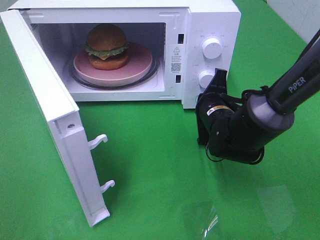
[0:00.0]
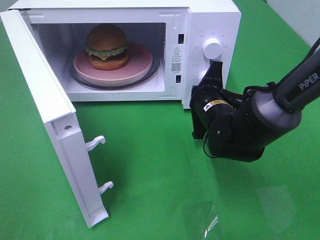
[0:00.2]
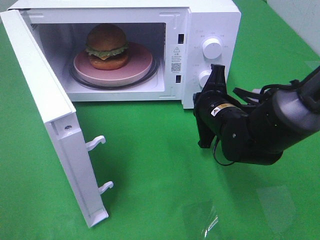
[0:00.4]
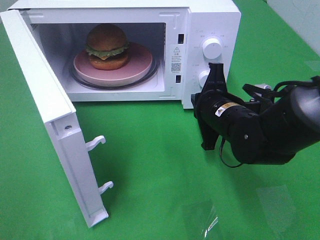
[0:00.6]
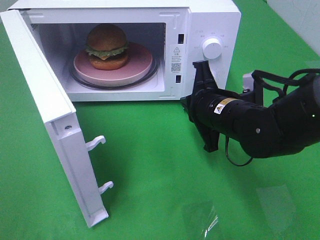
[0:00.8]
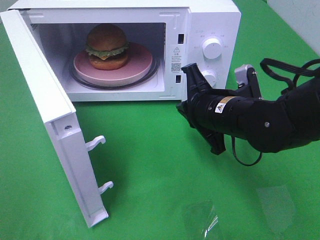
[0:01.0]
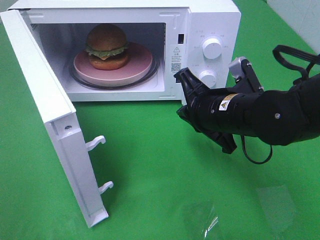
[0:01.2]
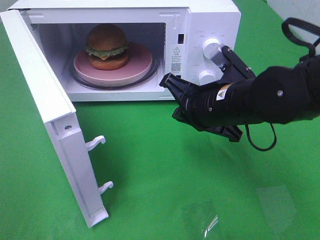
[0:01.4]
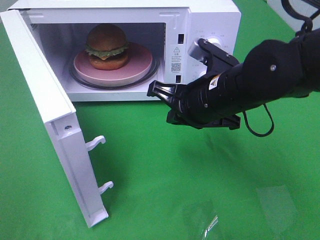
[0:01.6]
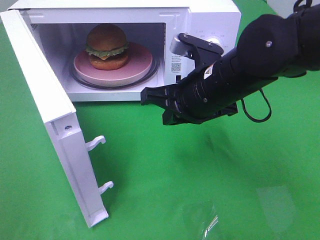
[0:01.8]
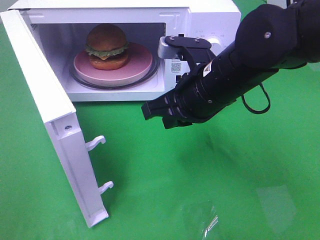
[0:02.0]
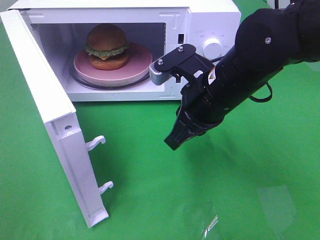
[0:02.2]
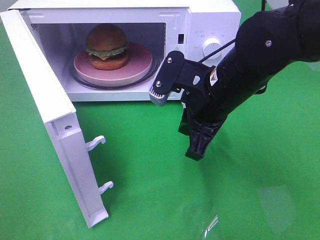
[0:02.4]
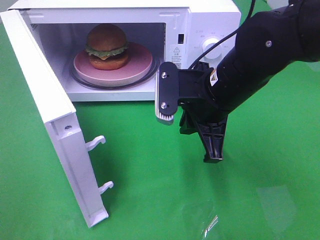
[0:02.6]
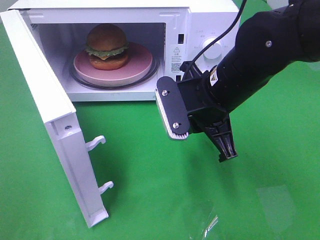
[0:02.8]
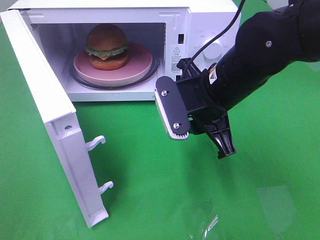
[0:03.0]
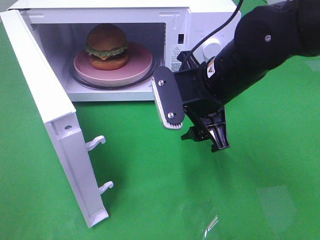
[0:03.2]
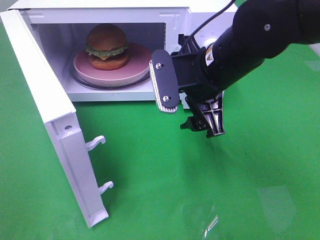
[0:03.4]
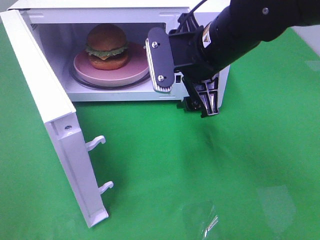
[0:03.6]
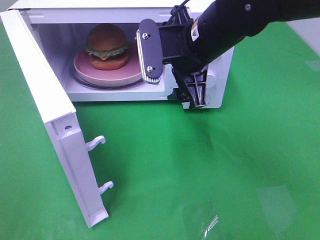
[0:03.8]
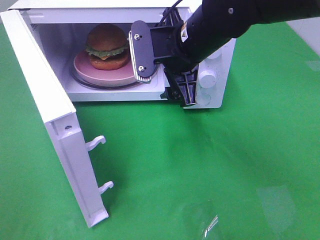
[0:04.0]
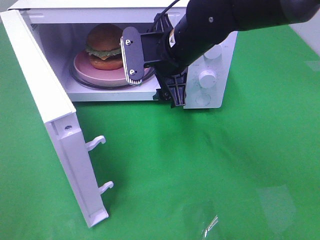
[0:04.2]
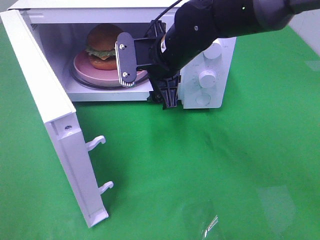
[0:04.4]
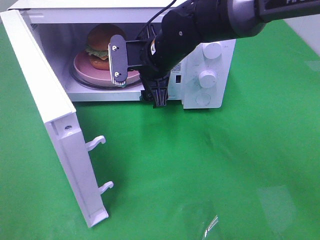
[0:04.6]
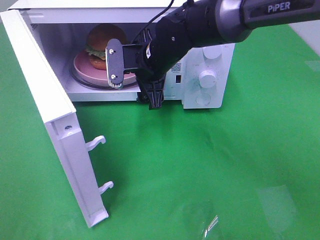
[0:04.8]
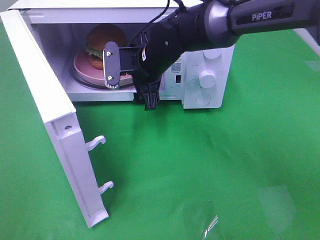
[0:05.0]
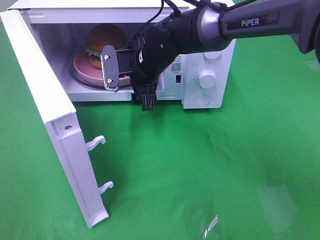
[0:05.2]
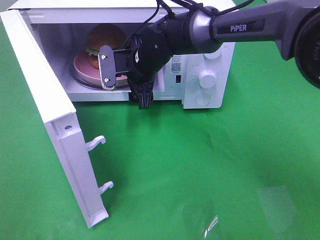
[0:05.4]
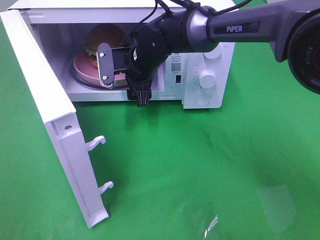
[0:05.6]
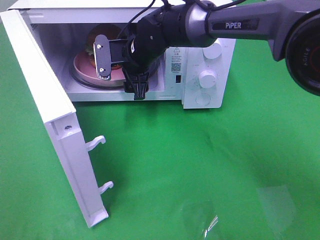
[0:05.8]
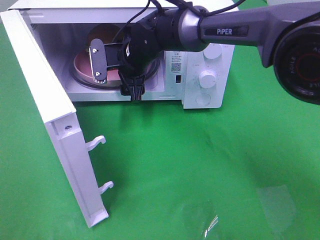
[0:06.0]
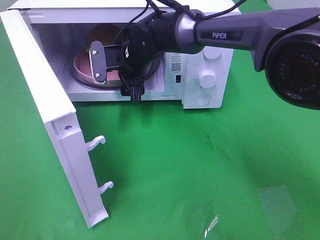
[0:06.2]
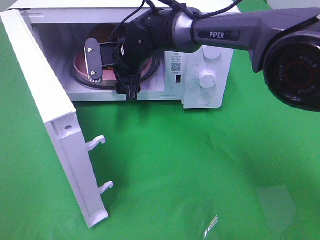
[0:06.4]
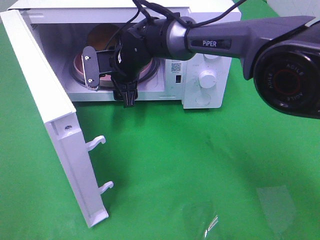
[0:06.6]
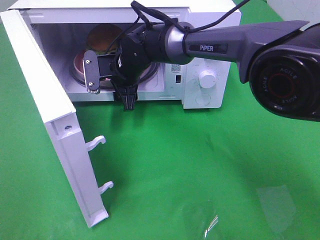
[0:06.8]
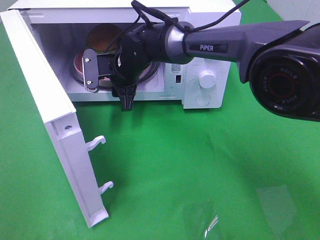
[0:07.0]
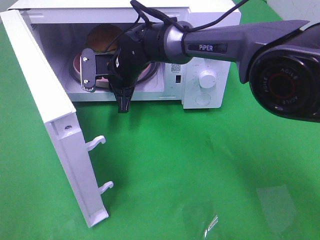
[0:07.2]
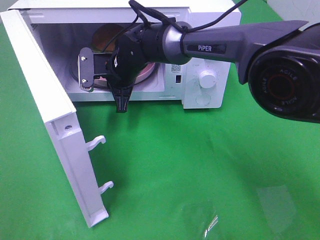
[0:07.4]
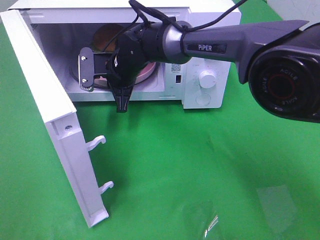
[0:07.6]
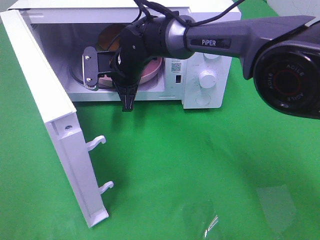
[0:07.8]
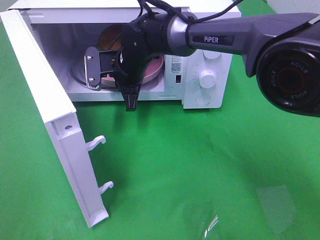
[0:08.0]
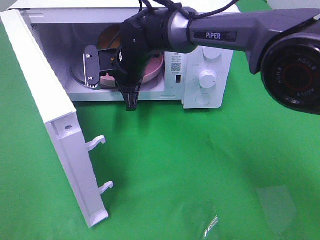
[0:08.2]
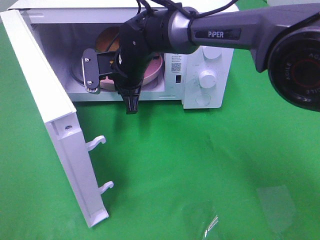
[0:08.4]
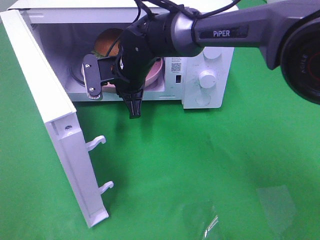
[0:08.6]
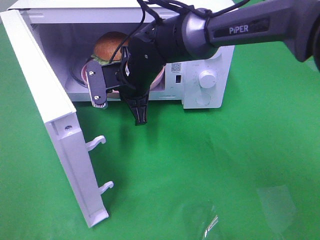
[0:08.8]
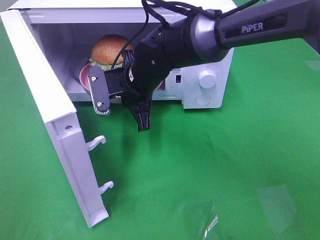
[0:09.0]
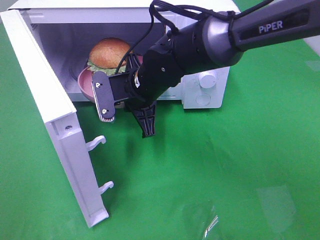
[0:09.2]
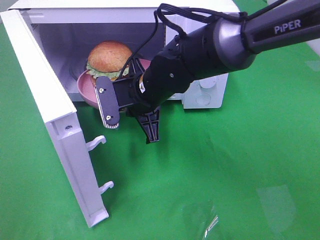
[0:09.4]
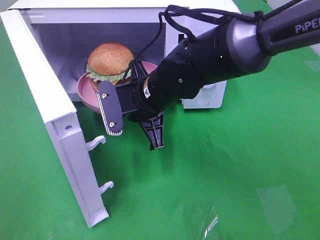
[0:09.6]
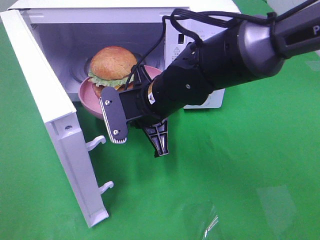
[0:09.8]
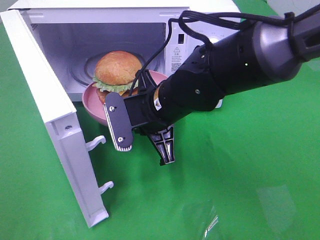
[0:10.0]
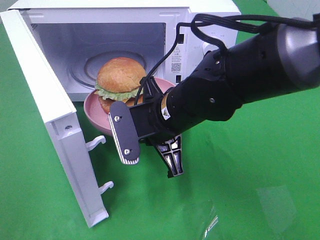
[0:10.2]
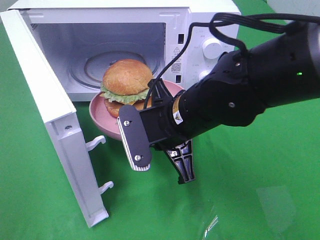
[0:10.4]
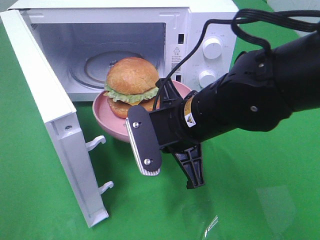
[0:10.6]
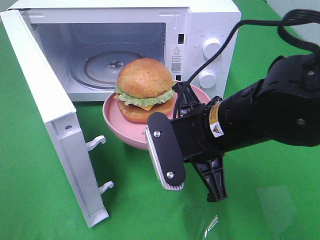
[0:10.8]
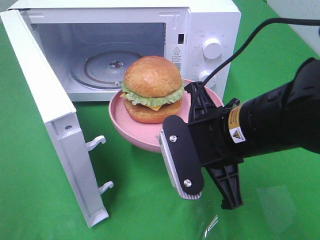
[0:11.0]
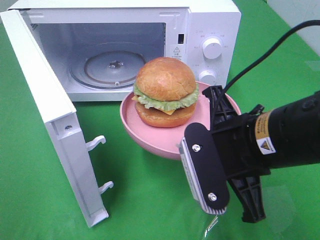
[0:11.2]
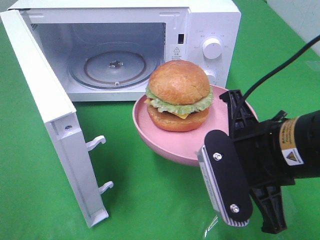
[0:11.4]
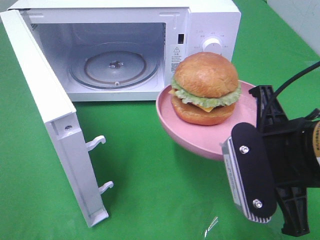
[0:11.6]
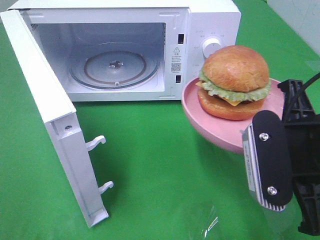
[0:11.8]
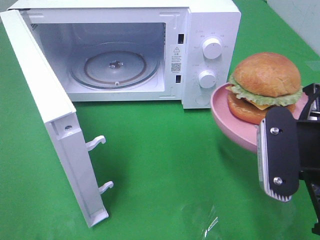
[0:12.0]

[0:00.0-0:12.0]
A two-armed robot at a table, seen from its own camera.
Task of the whole recording: Heat the burger.
Step, 0:00.0 to 0:07.2: Right hand: grab the plate with the hamburger.
0:00.0 to 0:01.6: The right gripper moves upward and backward, some 10 cm.
0:01.6 to 0:03.0: The right gripper opens.
0:03.0 to 0:04.4: The right gripper is displaced forward and to the left by roughly 10 cm, and opens up.
0:04.4 to 0:06.0: The right gripper heads forward and to the left, covering approximately 10 cm.
0:06.0 to 0:07.6: The right gripper closes.
0:07.6 to 0:09.0: The right gripper goes some 5 cm backward.
0:09.0 to 0:10.4: The right gripper travels backward and to the right by some 15 cm.
0:10.4 to 0:12.0: The right gripper travels to the right and backward by about 15 cm.

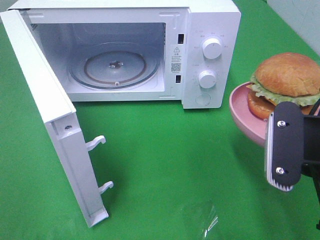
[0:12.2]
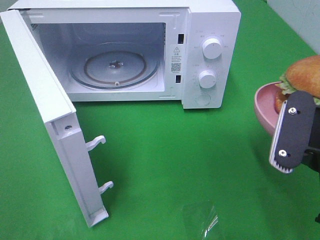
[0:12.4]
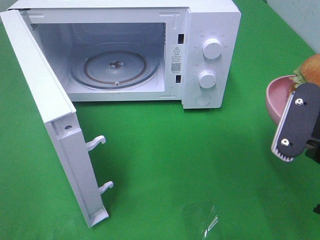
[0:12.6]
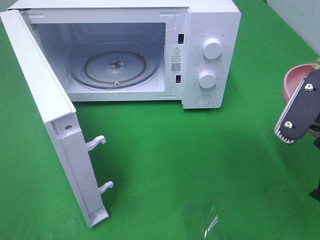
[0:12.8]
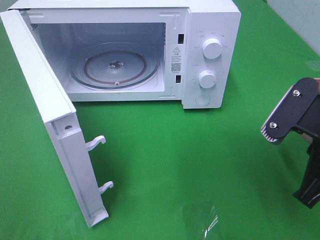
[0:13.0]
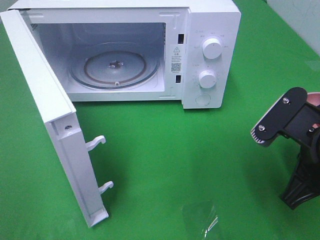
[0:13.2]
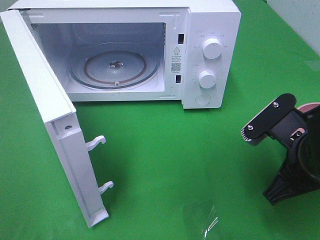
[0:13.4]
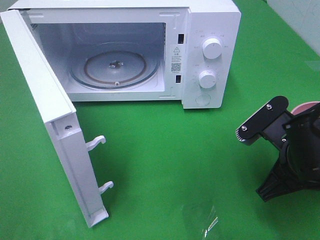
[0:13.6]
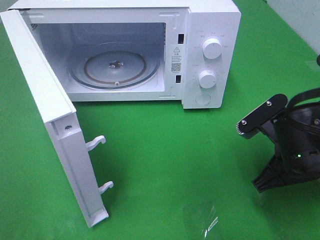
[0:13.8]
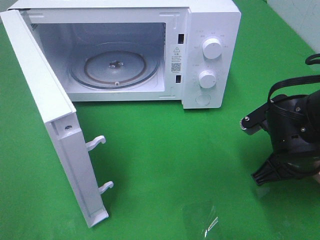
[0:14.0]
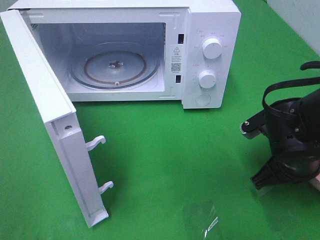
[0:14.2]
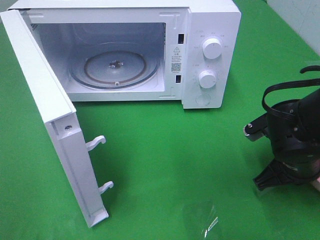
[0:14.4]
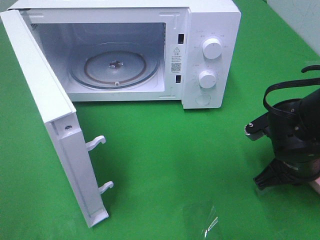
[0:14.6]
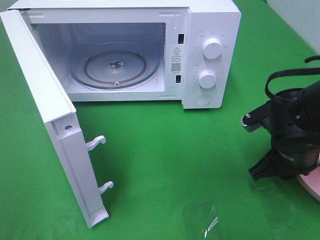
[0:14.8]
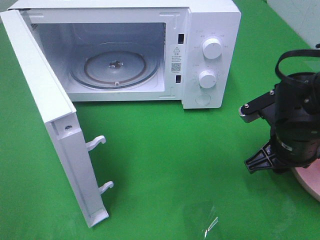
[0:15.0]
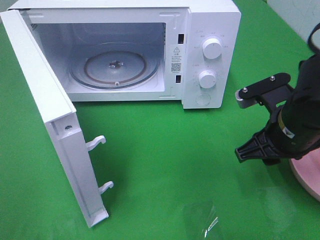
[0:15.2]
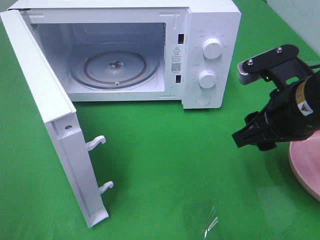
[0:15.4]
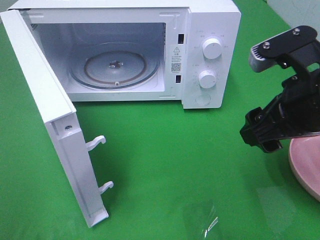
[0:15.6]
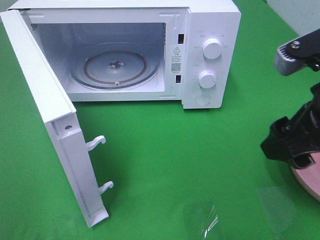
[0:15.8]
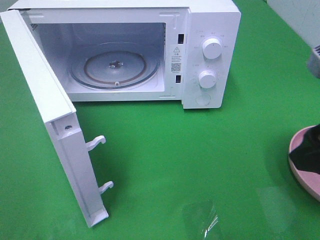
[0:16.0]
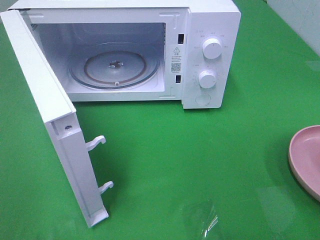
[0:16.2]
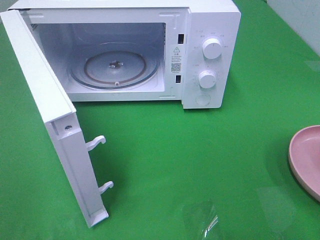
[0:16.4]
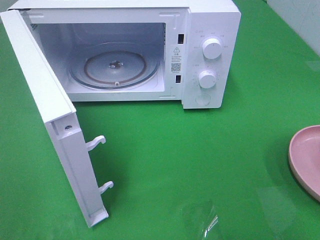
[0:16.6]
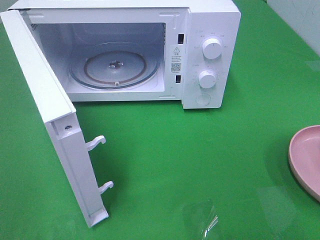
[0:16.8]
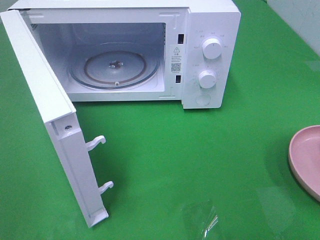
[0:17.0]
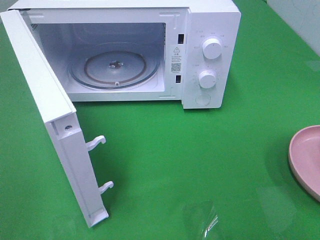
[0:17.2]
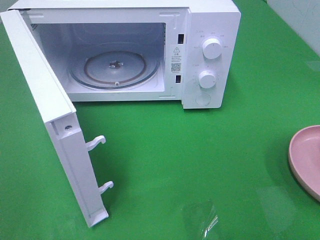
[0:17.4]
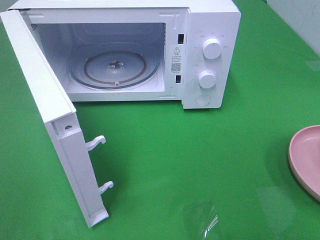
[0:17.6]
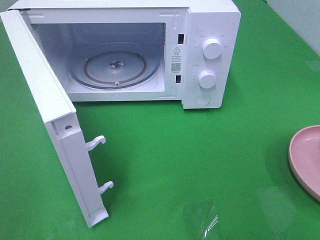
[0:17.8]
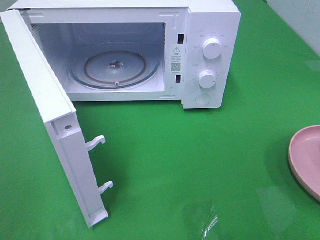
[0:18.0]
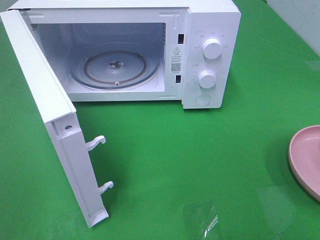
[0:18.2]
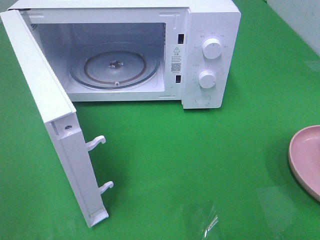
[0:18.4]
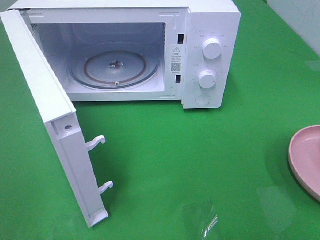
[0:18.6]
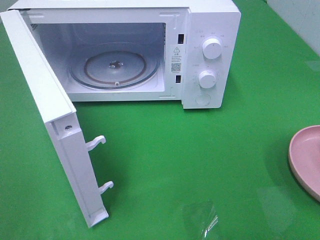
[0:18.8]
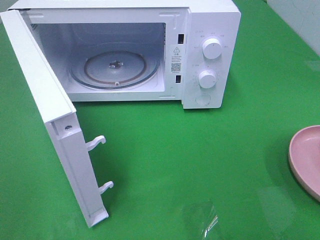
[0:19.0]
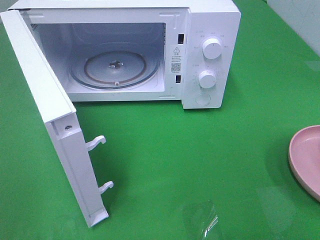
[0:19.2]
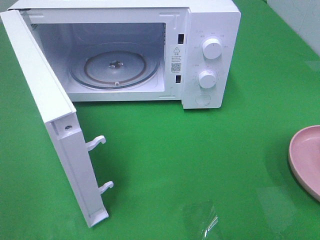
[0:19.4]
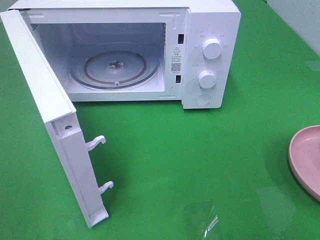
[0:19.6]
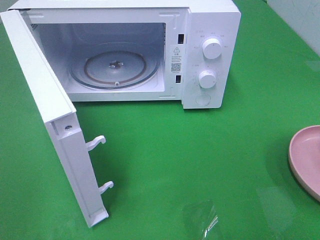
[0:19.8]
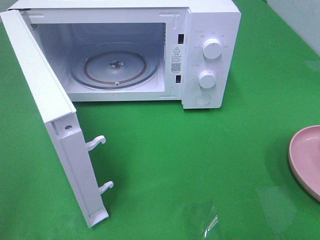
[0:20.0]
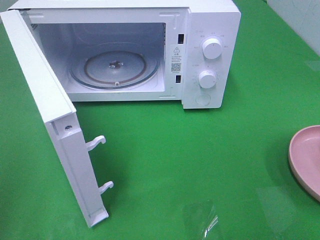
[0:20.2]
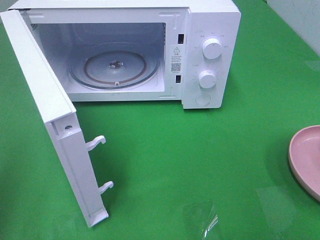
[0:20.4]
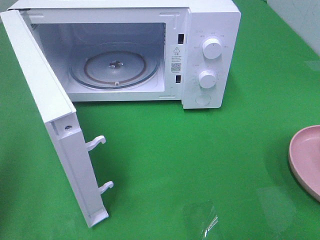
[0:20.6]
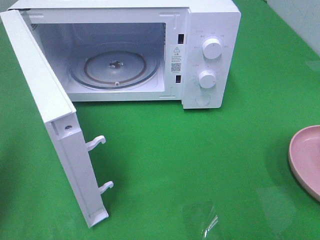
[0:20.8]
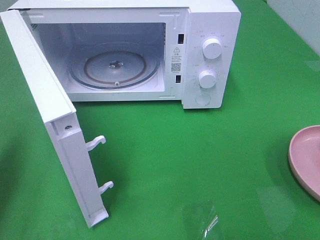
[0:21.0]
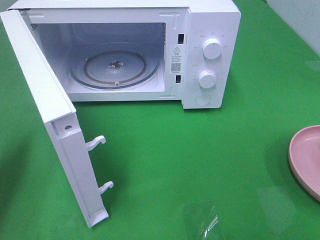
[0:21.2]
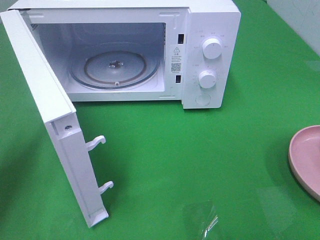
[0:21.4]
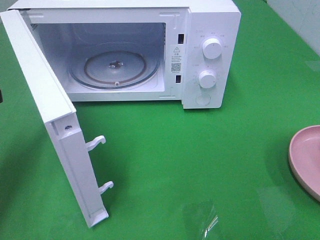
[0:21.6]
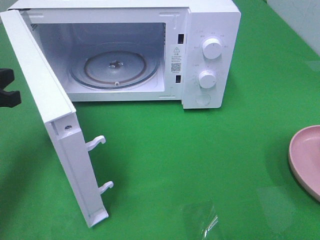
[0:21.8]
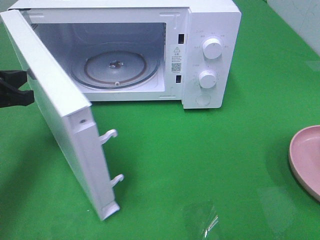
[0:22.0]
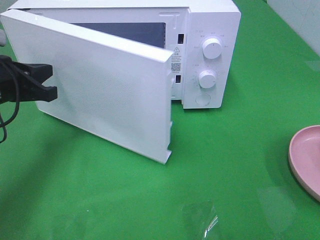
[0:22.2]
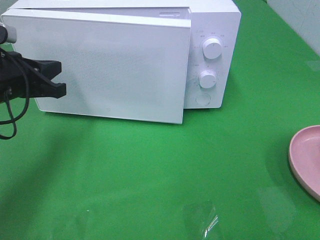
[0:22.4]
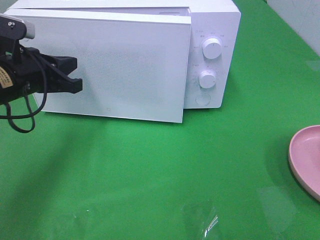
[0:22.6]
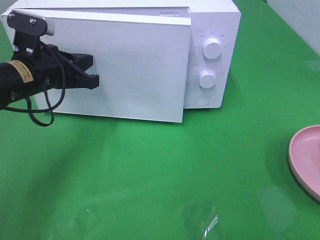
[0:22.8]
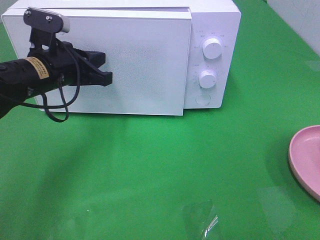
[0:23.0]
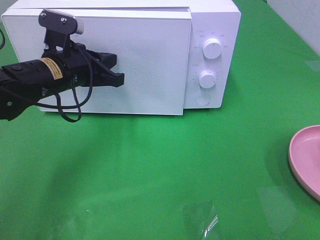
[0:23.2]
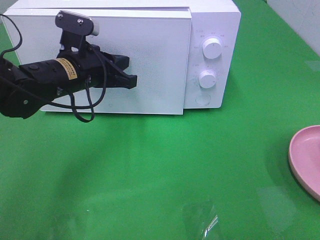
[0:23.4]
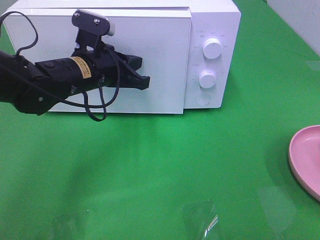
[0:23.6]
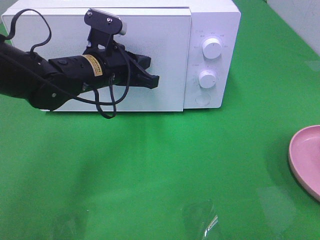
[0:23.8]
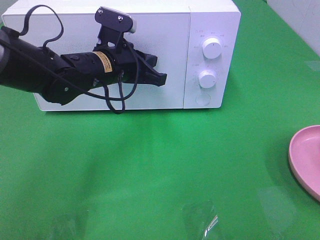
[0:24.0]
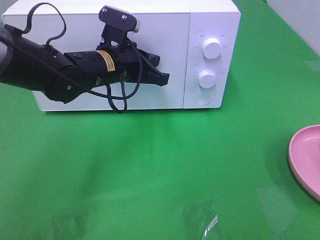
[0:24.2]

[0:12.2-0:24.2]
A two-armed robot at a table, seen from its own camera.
Task of the whole recording: Heat the burger.
Step, 0:12.2 to 0:14.6: Right hand: place the plate on the table.
Step, 0:14.8 to 0:24.0: Left hand: close the microwave door.
0:12.2 to 0:13.8: The right gripper heads downward and forward, covering roughly 10 cm.
0:13.8 to 0:15.2: The right gripper opens.
0:15.2 to 0:16.6: The right gripper is displaced backward, upward and to the right by roughly 25 cm.
0:19.8 to 0:21.2: The left gripper travels forward by roughly 20 cm, and closes.
0:21.2 to 0:22.6: The left gripper heads to the right and forward, covering roughly 15 cm.
0:22.6 to 0:24.2: The left gripper goes about 15 cm to the right.
